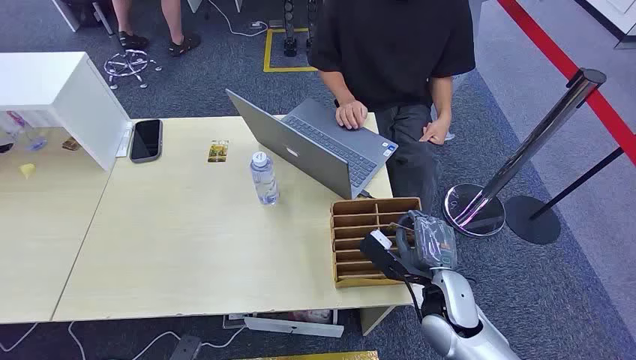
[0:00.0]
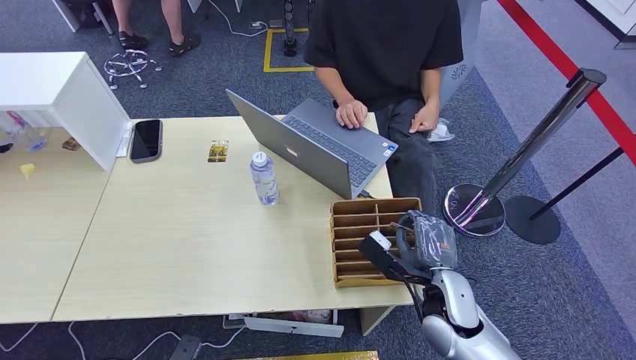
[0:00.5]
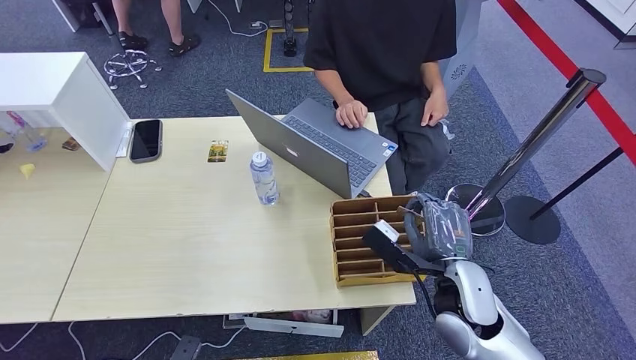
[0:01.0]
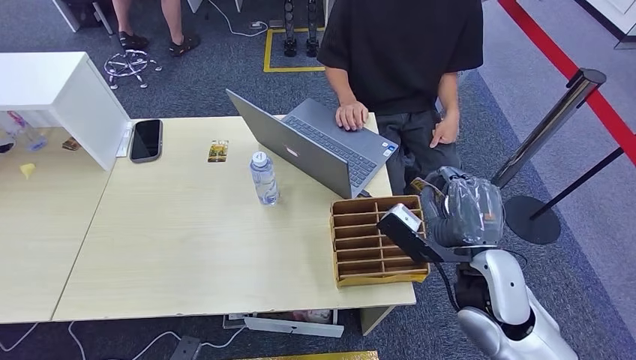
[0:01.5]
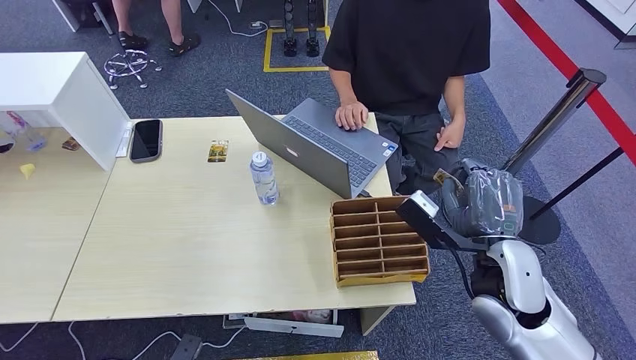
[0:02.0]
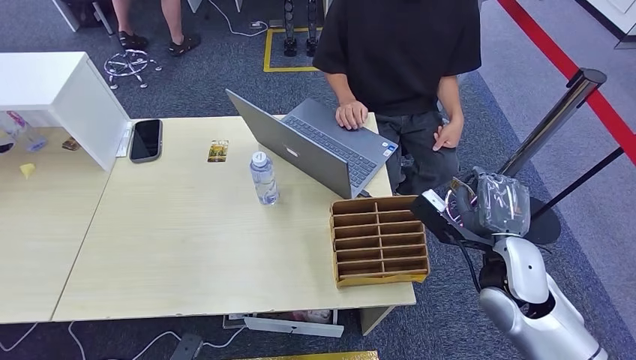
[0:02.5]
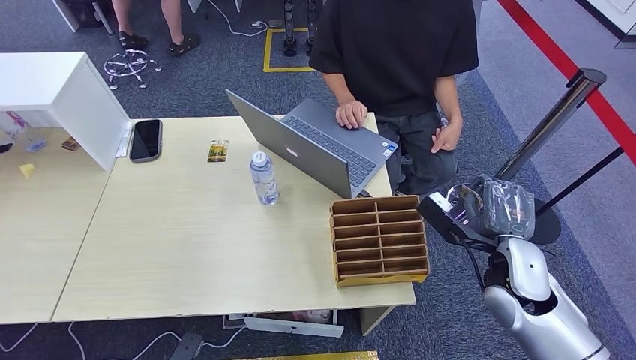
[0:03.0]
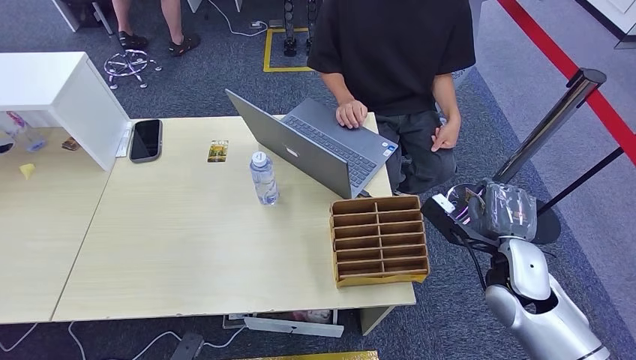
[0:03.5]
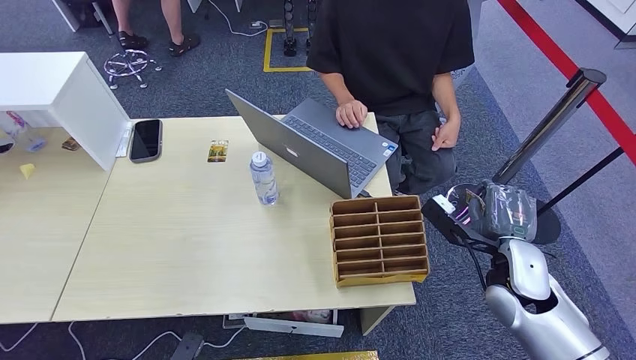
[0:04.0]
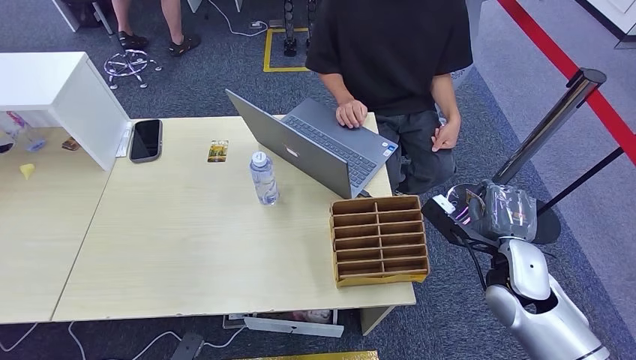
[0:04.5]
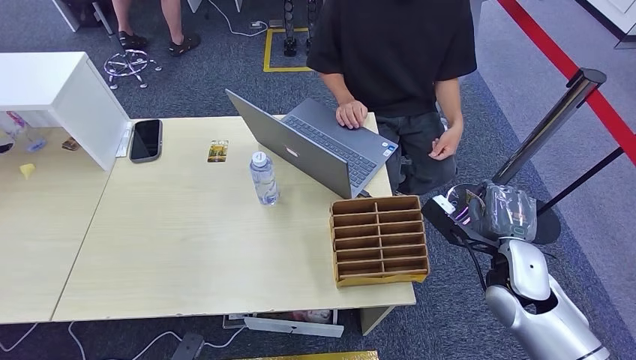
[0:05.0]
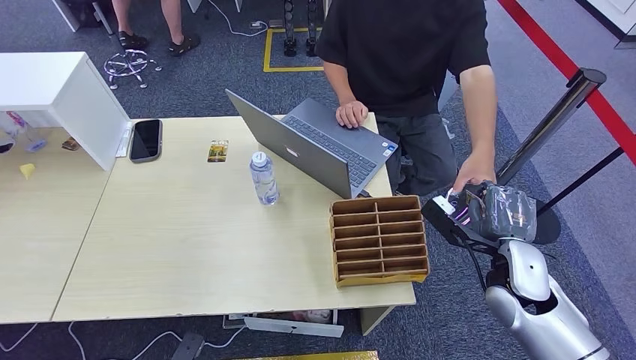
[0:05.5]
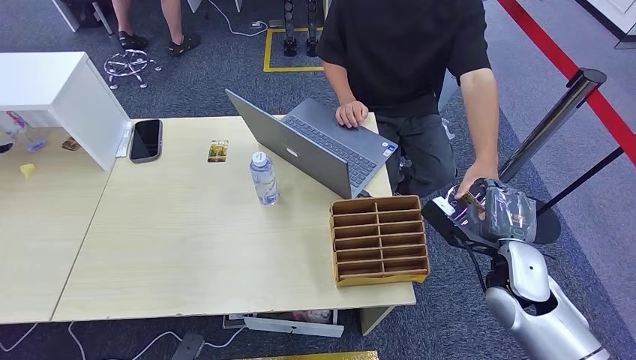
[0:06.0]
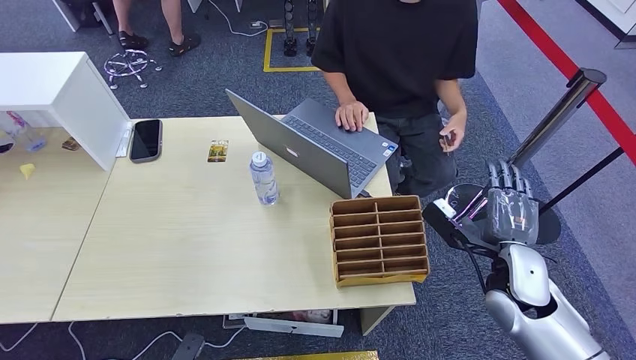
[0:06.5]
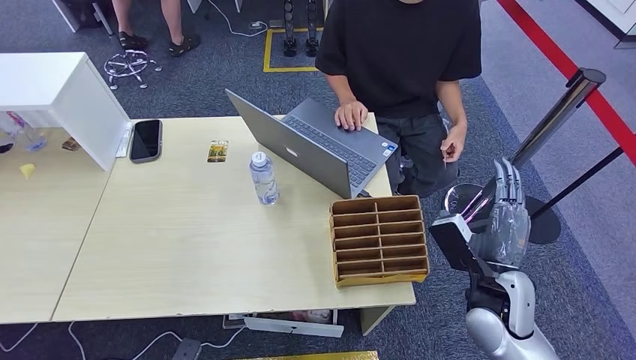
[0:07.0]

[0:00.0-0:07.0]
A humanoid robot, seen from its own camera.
Step, 0:00.0 to 0:01.5: Pick up the key card from the card box.
Step, 0:02.0 to 0:07.0: Hand the key card to the target.
0:02.0 to 0:03.5: The right hand heads downward and to the right, covering about 10 cm.
0:03.5 to 0:05.0: Neither hand changes place.

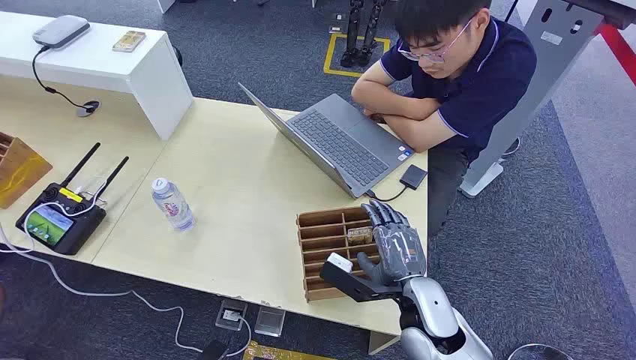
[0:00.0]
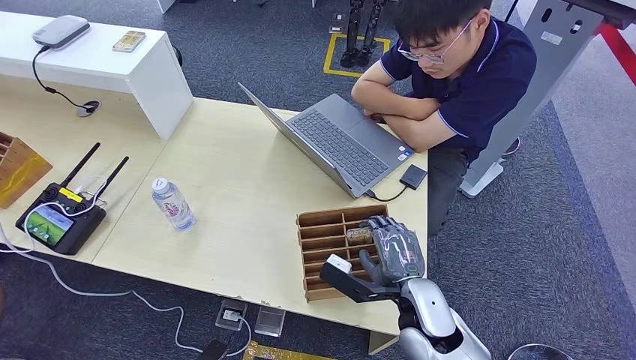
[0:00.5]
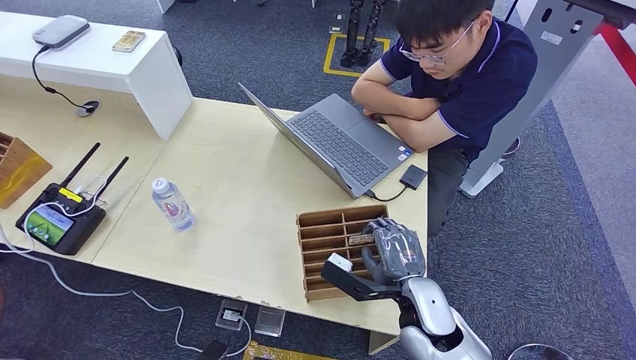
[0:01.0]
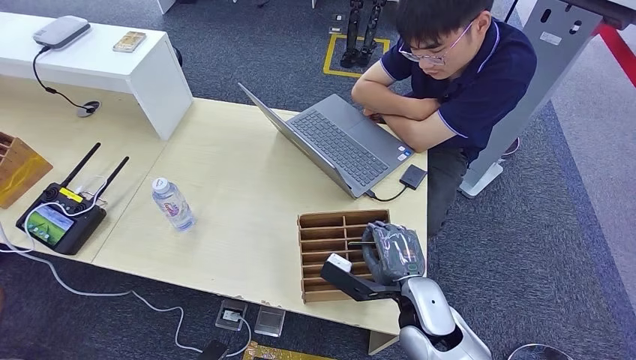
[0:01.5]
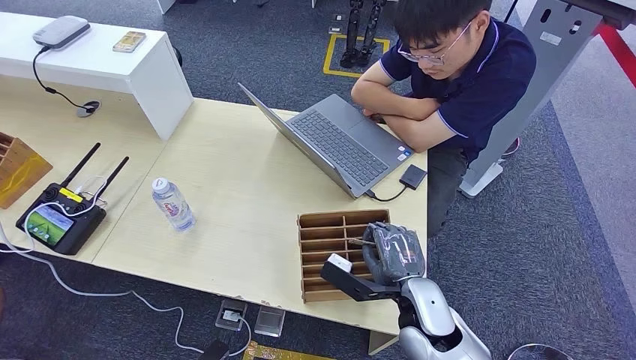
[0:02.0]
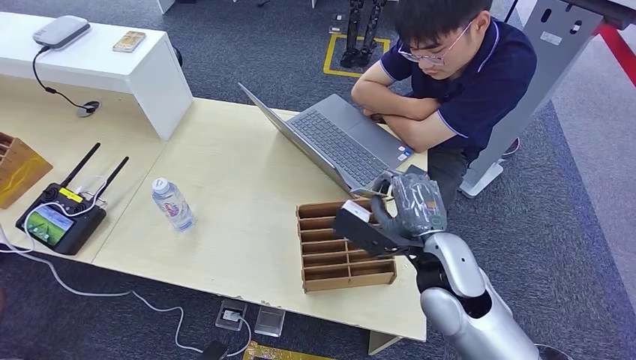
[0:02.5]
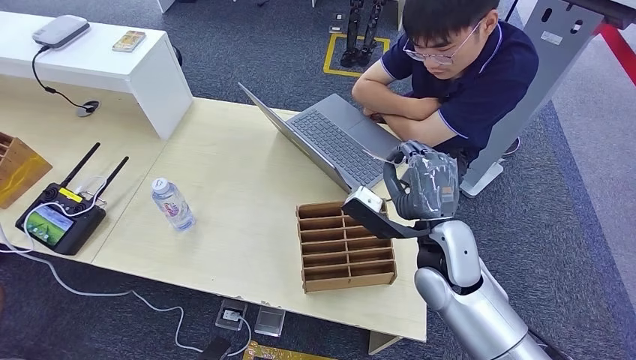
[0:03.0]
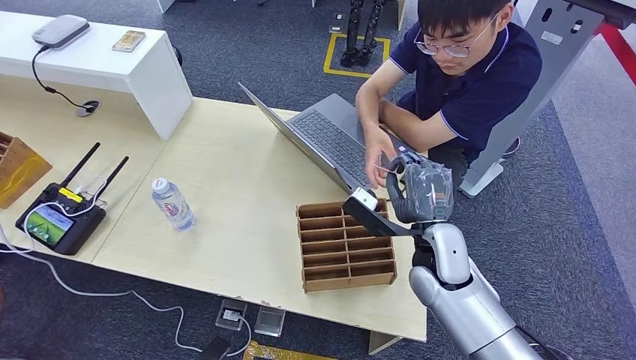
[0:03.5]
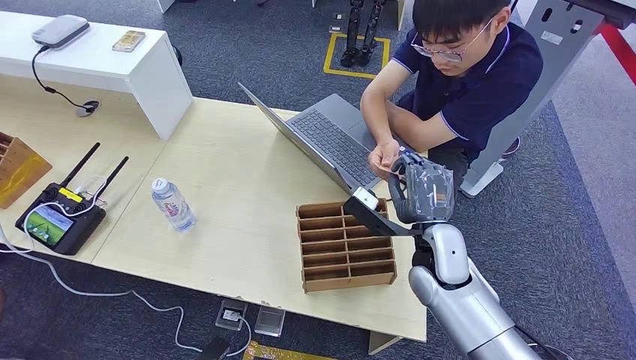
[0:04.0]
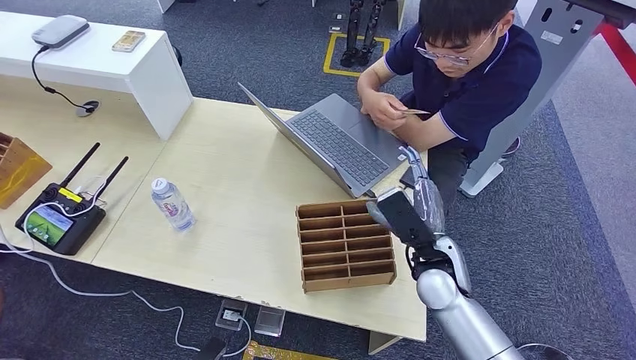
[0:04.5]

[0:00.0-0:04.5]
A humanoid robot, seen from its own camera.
Step, 0:00.0 to 0:02.5: Pick up the key card from the card box.
Step, 0:03.0 to 0:04.5: Hand the key card to the target.
0:02.0 to 0:04.5: The right hand moves forward, about 5 cm, and goes upward and returns, some 10 cm each way.
